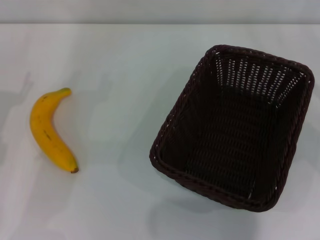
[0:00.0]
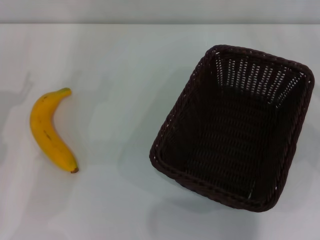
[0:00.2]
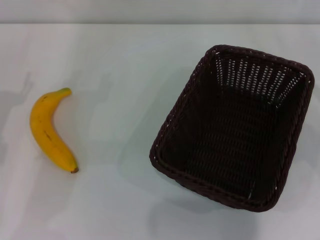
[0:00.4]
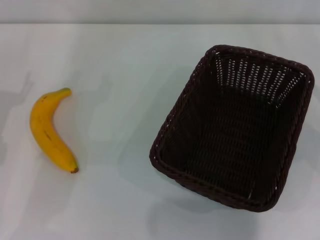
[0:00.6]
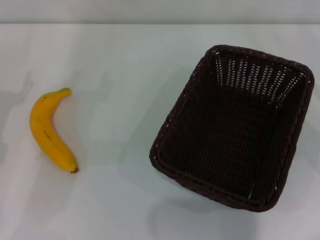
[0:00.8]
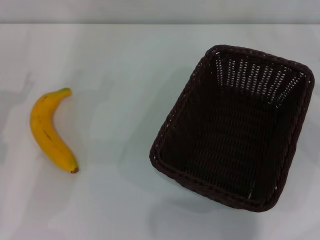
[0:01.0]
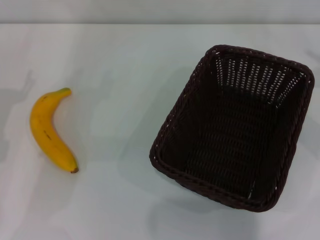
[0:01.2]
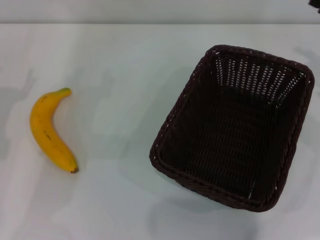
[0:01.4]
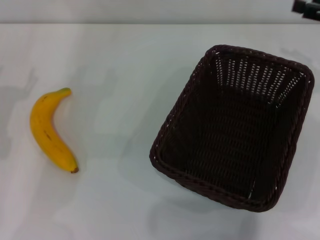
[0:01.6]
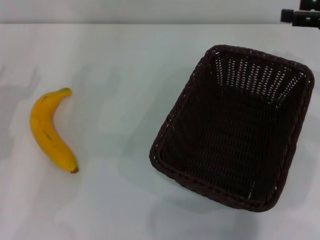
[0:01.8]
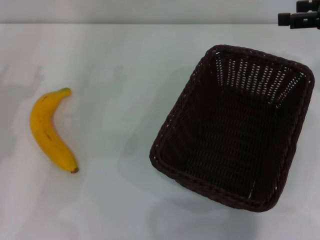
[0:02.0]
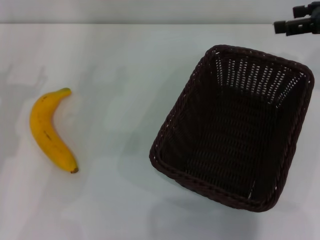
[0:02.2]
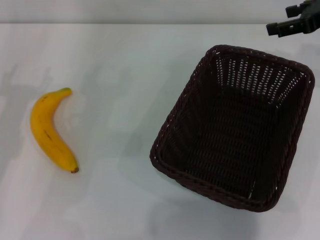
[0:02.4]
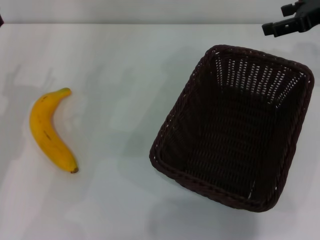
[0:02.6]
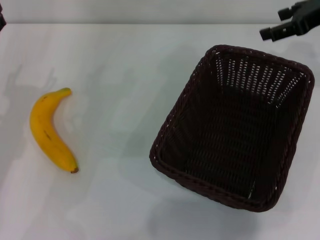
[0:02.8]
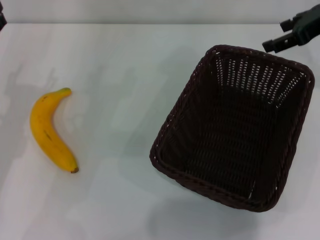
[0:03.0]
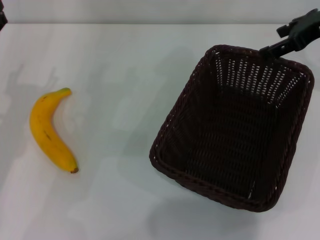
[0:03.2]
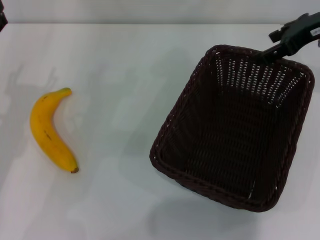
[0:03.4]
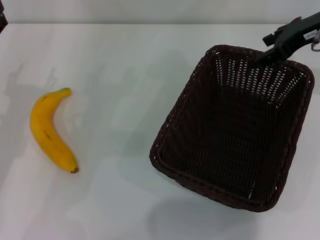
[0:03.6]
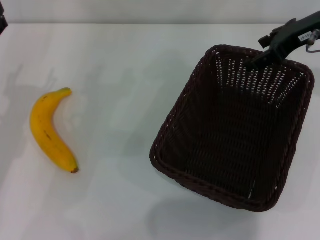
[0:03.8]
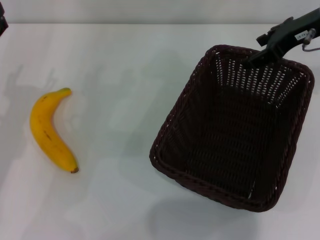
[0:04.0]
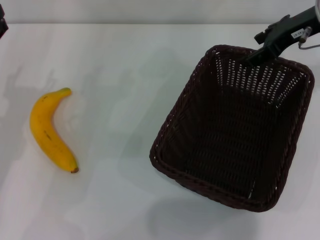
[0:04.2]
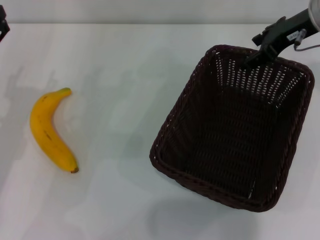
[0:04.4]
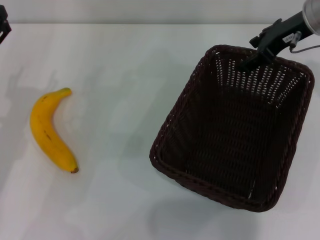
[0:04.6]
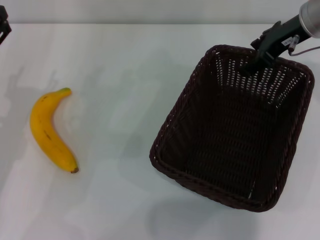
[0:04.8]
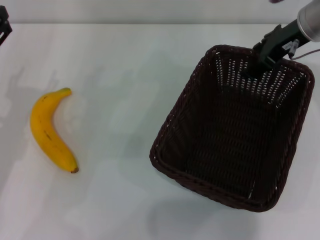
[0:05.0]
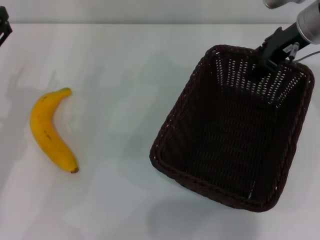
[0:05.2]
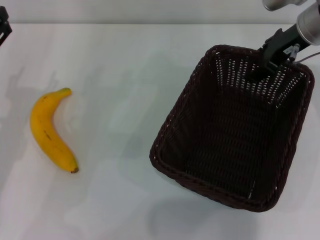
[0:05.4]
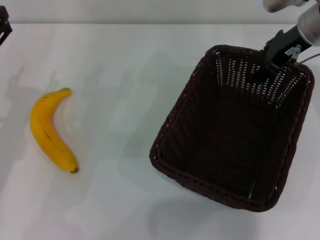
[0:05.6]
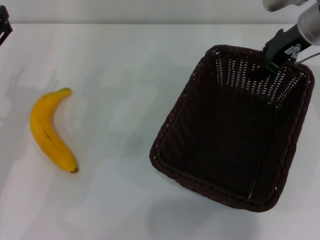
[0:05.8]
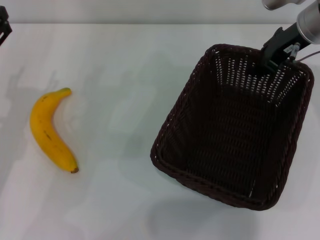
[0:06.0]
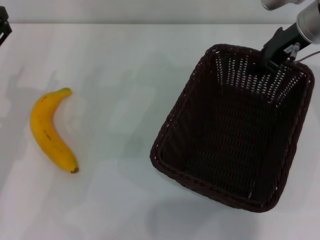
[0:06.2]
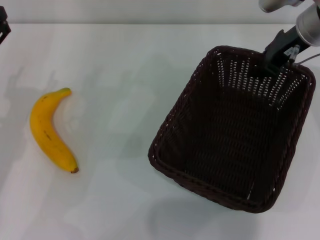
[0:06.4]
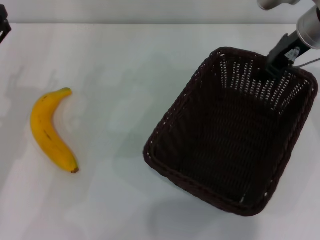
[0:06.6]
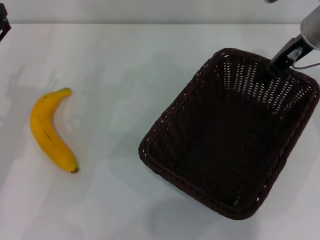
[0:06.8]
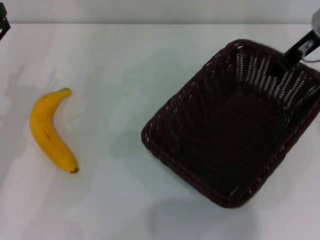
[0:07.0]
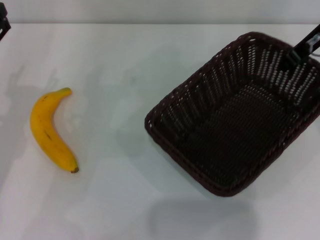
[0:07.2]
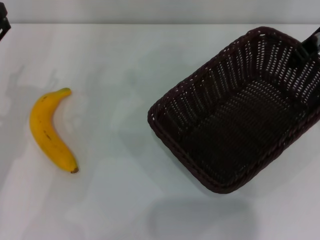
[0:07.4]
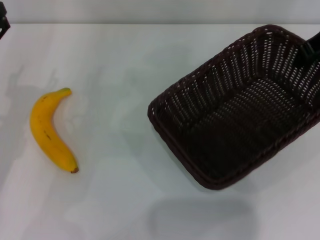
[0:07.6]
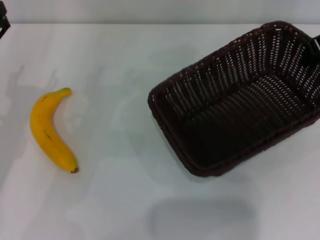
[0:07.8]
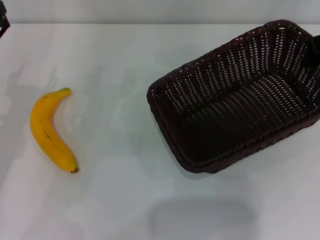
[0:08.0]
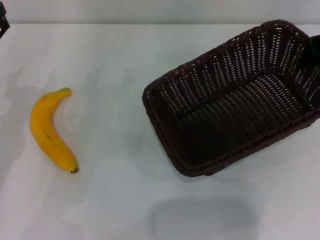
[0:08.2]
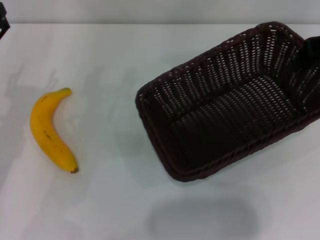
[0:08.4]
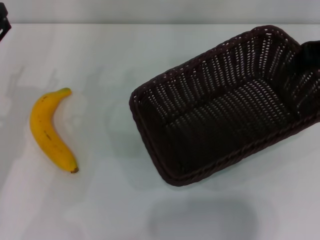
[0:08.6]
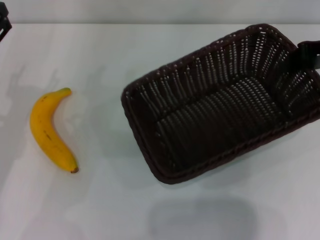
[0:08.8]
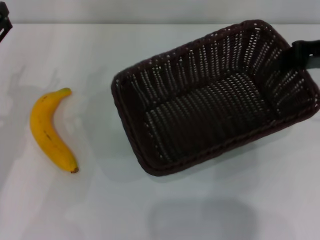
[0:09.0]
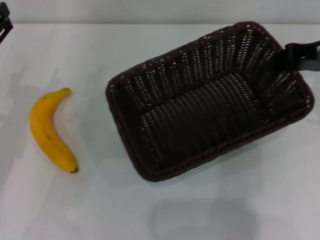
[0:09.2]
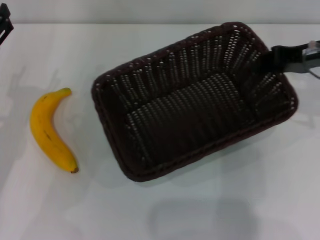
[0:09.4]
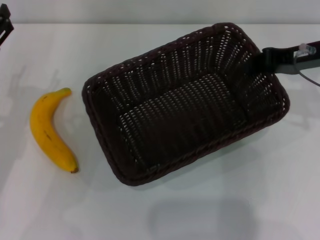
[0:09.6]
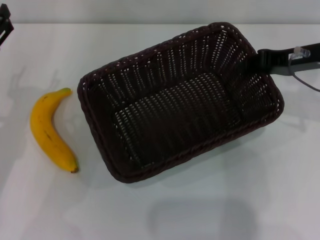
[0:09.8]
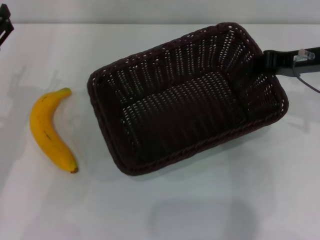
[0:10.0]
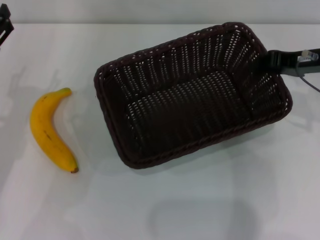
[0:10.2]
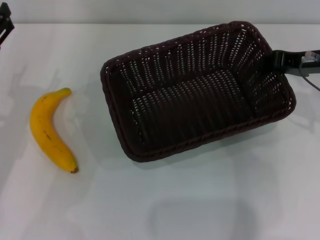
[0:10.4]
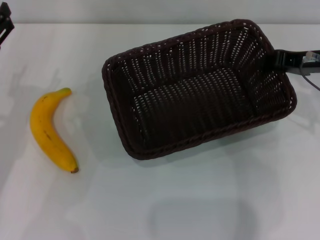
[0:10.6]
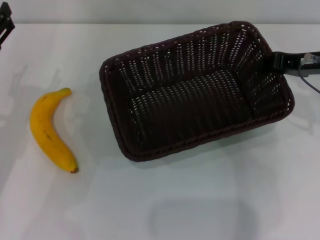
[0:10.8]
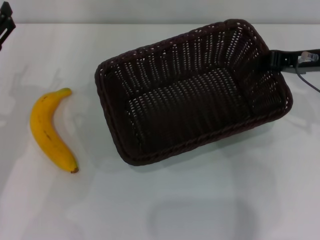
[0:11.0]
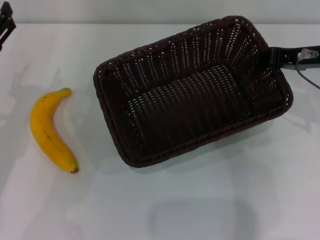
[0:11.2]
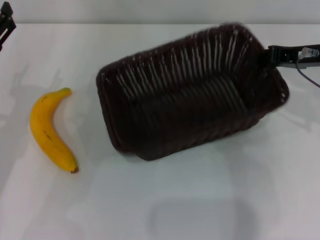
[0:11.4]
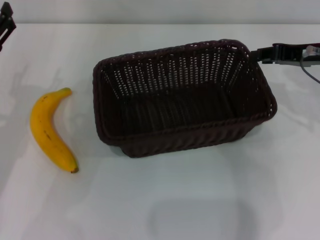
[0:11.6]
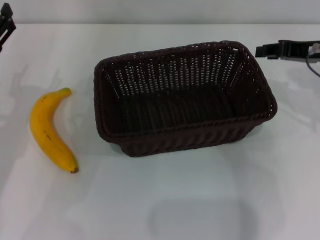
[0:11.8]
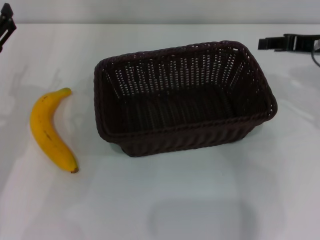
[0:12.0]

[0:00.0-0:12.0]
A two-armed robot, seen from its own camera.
Step, 0:00.0 to 0:08.0: Pick up the dark basket with the right gripper.
0:01.6 to 0:03.0: The right gripper moves to the left, roughly 5 cm.
0:03.0 to 0:04.4: The right gripper travels to the left by about 5 cm.
0:04.4 to 0:06.0: The right gripper closes.
0:06.0 to 0:07.6: The right gripper goes roughly 5 cm upward.
0:07.6 to 0:09.0: The right gripper ends up some 5 cm from where it was.
0:09.0 to 0:10.4: The right gripper changes place by some 5 cm.
0:10.4 to 0:12.0: The right gripper opens.

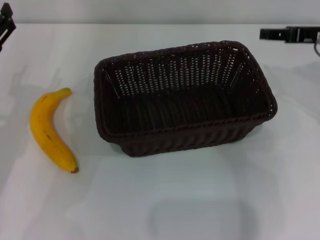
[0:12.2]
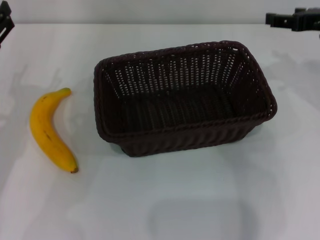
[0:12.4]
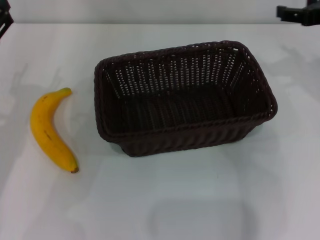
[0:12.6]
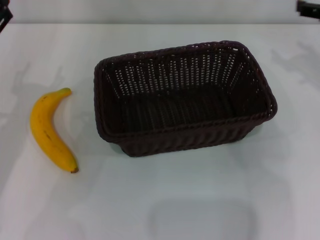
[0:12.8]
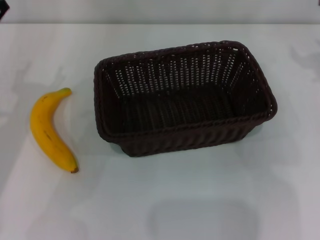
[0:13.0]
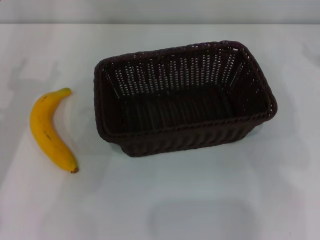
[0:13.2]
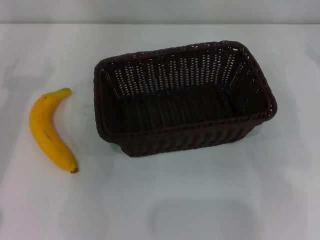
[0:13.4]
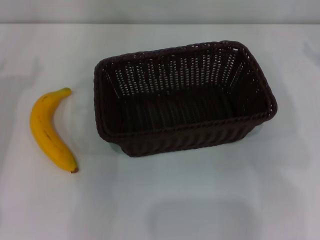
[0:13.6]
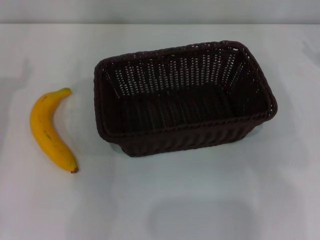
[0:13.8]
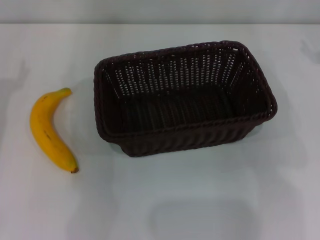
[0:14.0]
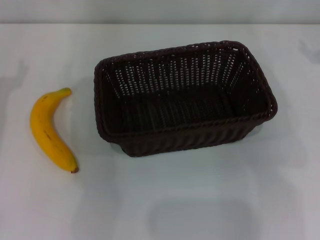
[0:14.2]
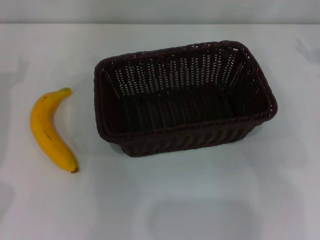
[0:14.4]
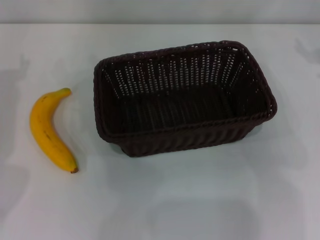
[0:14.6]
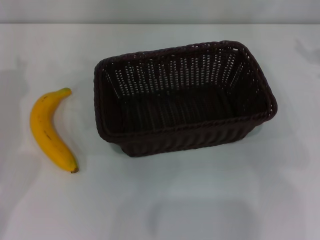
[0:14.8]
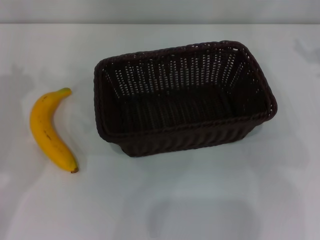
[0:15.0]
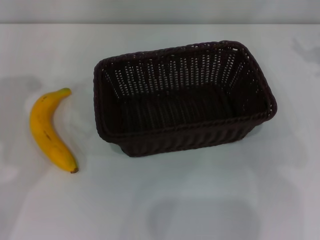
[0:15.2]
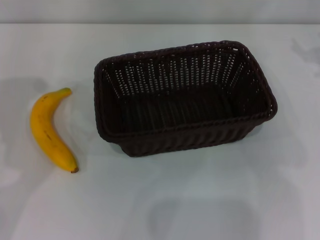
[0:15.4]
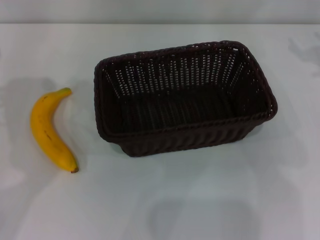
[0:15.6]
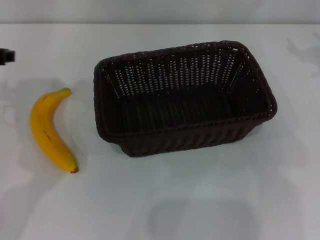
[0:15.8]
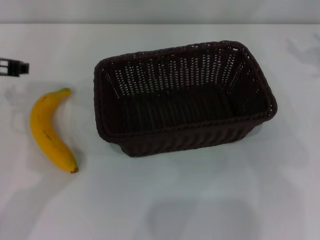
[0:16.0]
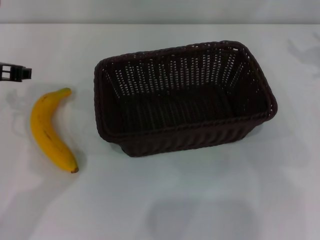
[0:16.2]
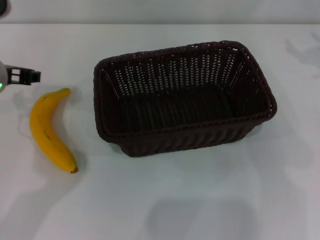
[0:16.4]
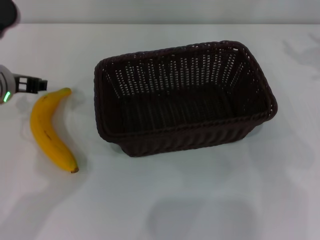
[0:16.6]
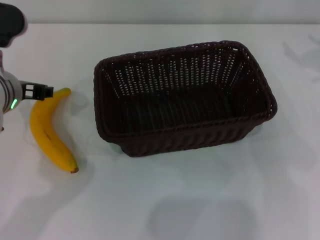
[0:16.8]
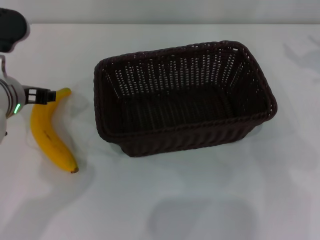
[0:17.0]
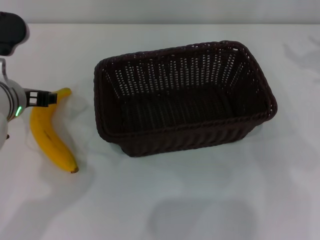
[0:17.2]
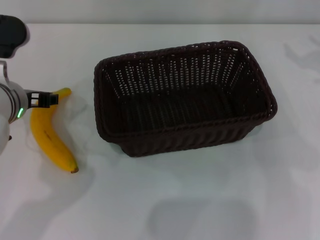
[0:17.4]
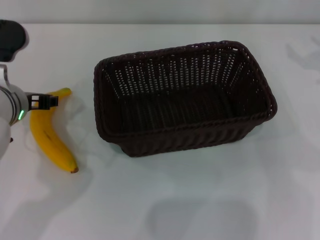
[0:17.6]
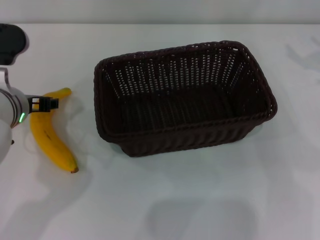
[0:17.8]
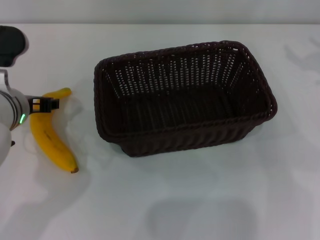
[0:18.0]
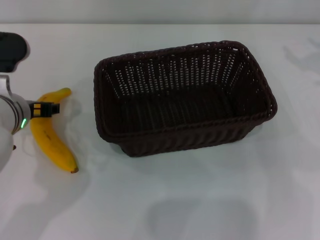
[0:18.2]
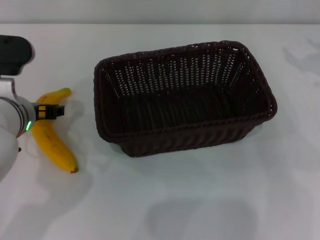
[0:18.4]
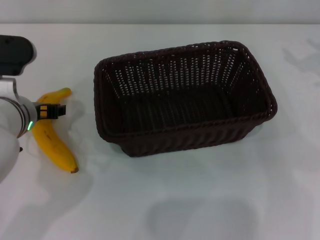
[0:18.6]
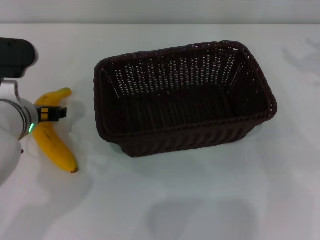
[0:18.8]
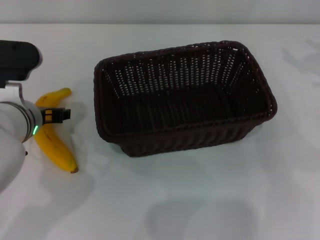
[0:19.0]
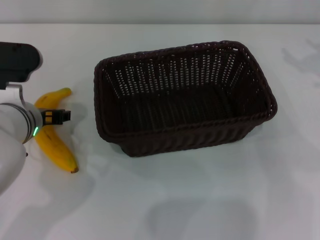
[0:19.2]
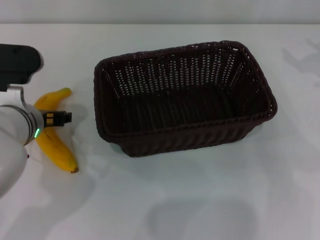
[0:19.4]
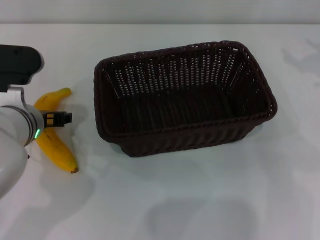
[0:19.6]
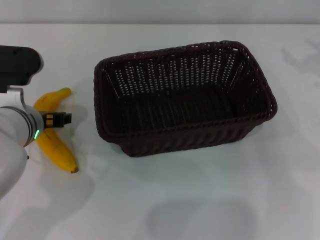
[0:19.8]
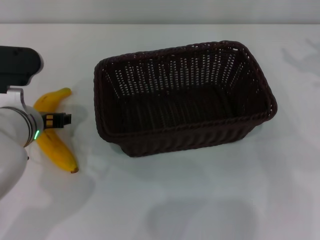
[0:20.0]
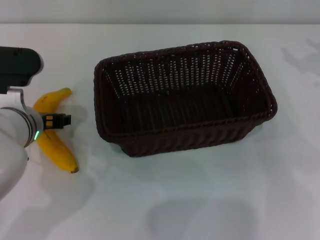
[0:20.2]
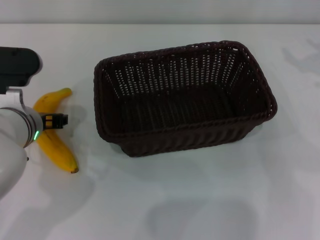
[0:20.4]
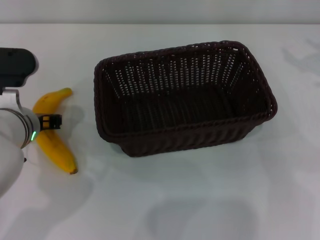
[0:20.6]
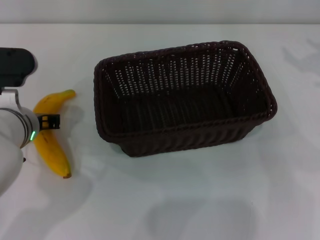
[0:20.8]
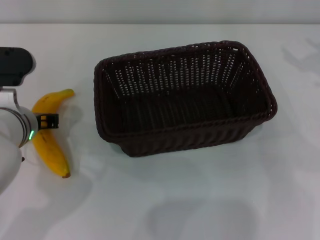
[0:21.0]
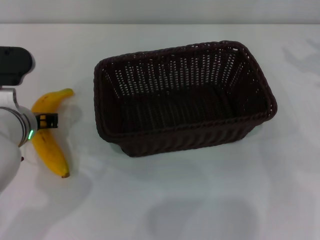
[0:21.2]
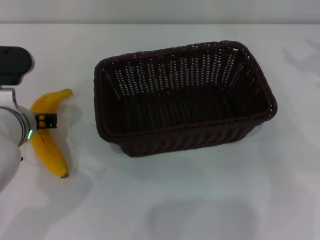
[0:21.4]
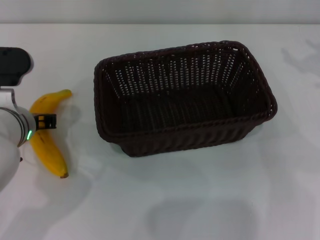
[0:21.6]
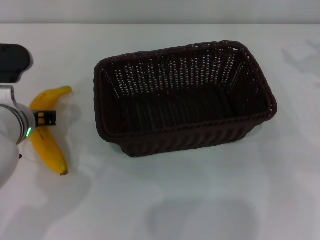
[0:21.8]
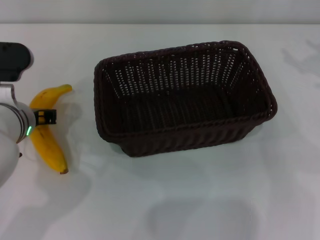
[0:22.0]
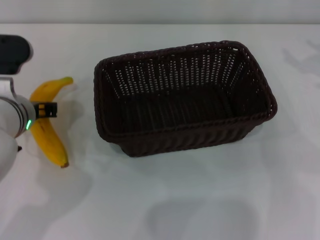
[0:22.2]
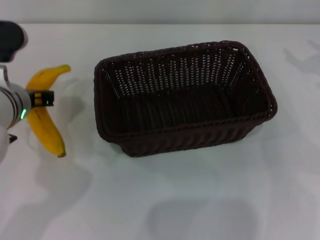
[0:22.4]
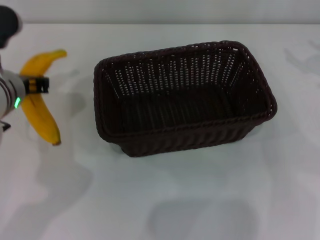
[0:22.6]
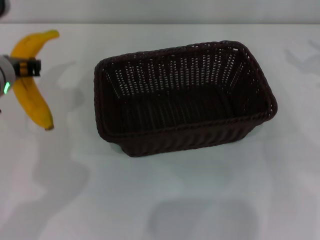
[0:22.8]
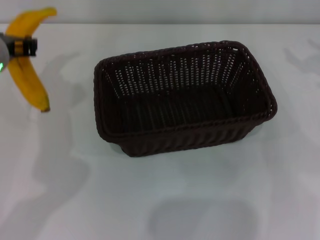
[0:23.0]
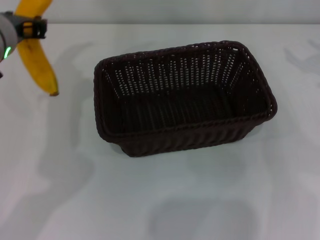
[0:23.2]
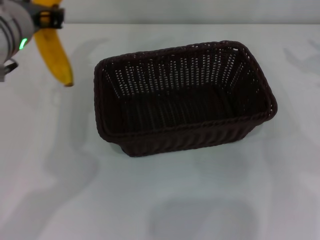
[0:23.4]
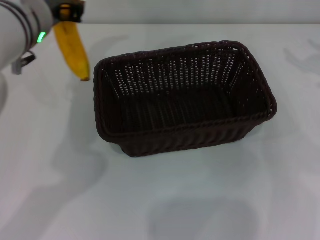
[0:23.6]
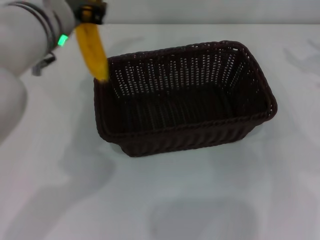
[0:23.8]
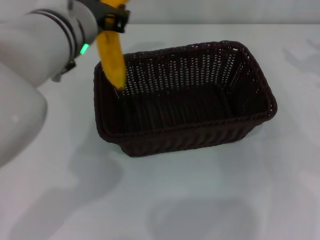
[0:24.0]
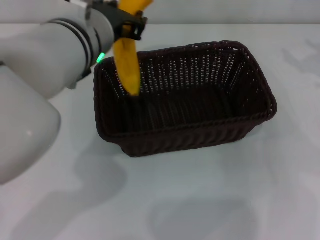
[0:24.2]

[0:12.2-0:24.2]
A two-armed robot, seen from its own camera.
Step, 0:12.4 to 0:22.8: Pick up the banana with the left gripper.
0:12.2 to 0:13.8: The right gripper goes about 10 cm to the right, and opens.
0:15.2 to 0:16.6: The left gripper moves to the right, approximately 10 cm.
0:16.6 to 0:18.2: The grippers make only small movements.
0:18.2 to 0:19.8: The grippers make only small movements.
0:19.8 to 0:21.2: The left gripper closes up.
0:21.2 to 0:22.6: There are only small adjustments of the grippers.
0:22.6 to 0:24.2: The left gripper travels to the right and upward by about 10 cm.
